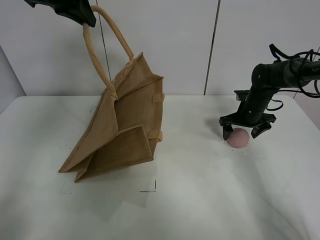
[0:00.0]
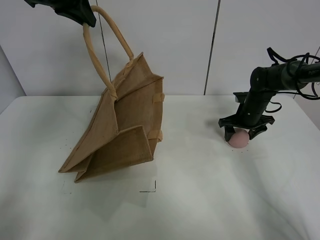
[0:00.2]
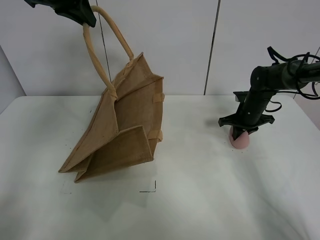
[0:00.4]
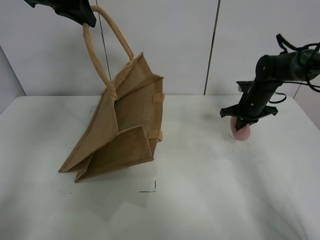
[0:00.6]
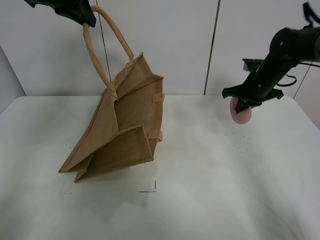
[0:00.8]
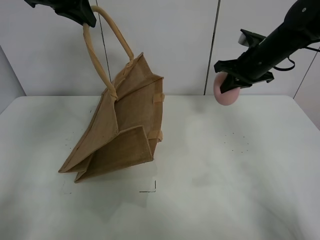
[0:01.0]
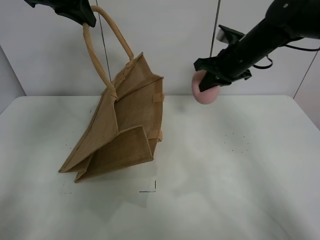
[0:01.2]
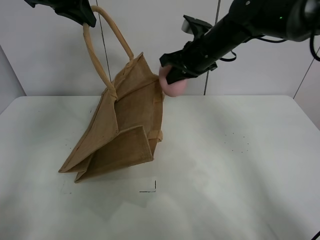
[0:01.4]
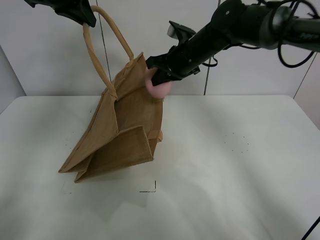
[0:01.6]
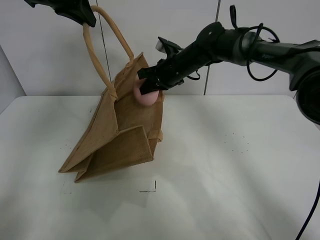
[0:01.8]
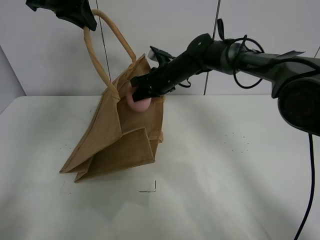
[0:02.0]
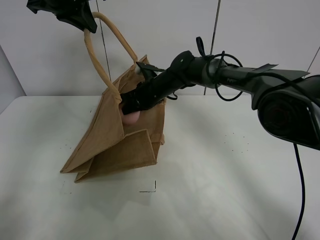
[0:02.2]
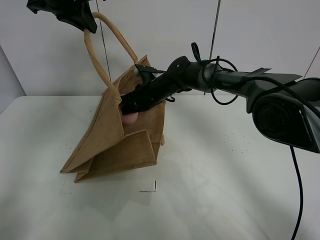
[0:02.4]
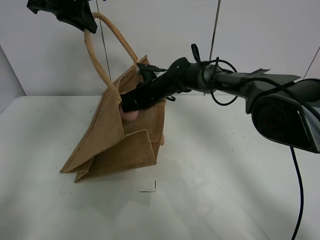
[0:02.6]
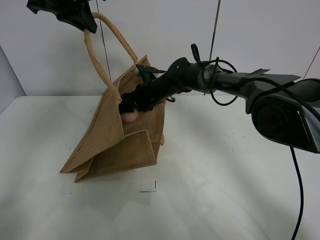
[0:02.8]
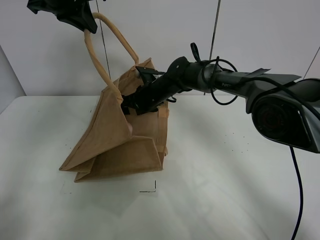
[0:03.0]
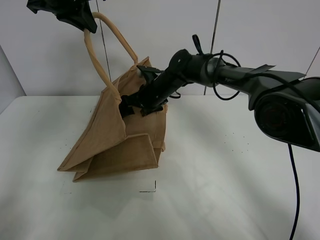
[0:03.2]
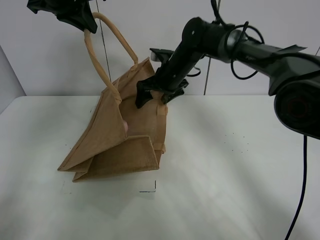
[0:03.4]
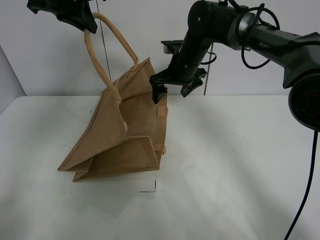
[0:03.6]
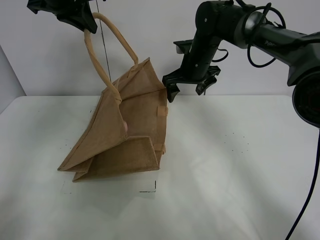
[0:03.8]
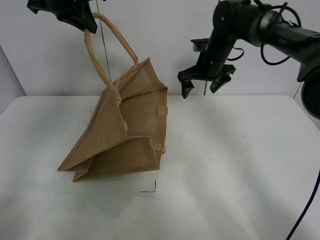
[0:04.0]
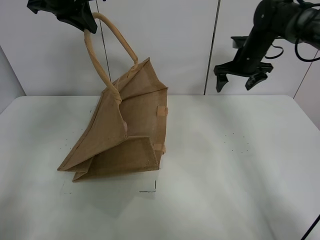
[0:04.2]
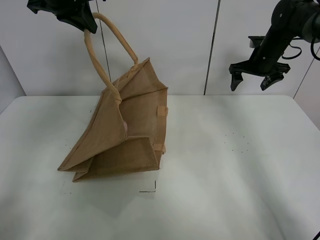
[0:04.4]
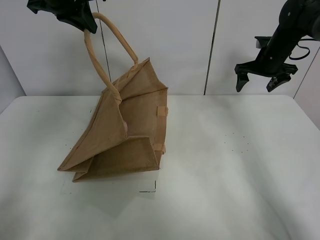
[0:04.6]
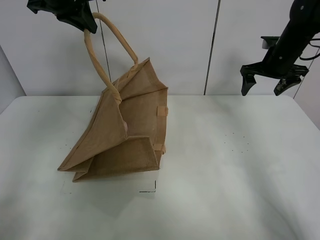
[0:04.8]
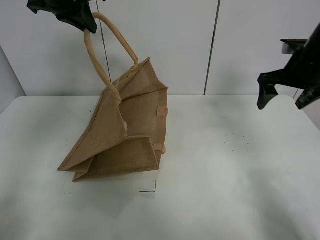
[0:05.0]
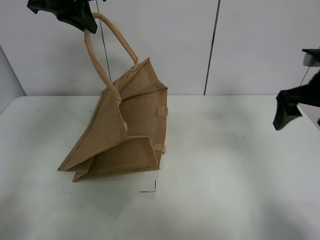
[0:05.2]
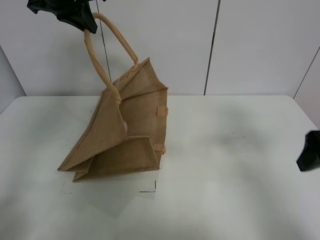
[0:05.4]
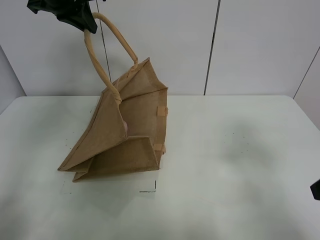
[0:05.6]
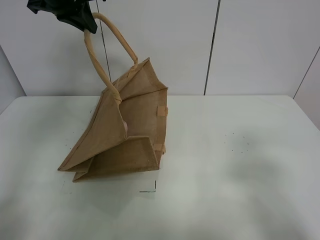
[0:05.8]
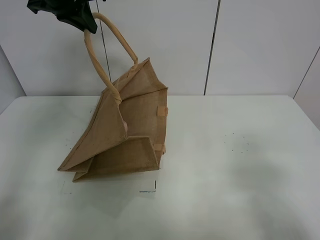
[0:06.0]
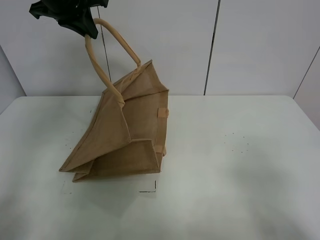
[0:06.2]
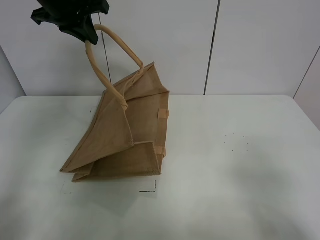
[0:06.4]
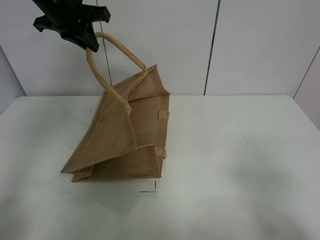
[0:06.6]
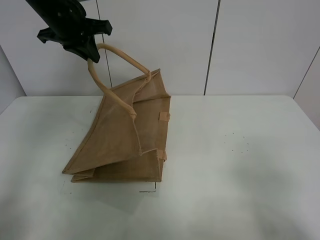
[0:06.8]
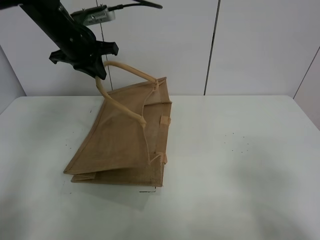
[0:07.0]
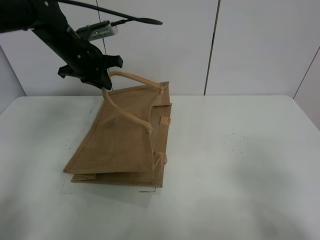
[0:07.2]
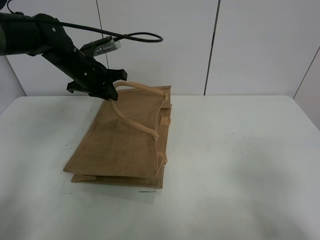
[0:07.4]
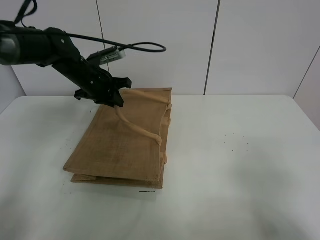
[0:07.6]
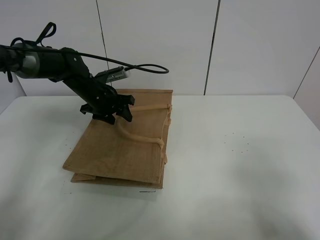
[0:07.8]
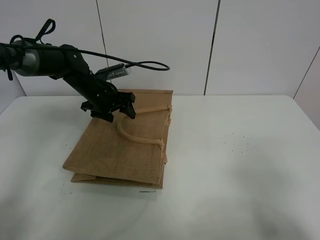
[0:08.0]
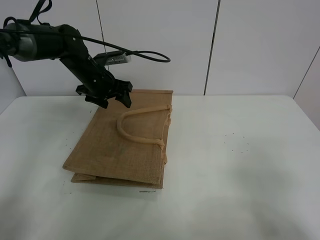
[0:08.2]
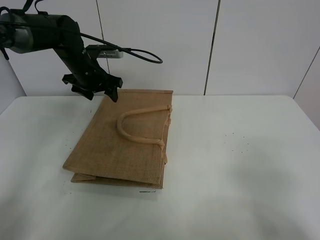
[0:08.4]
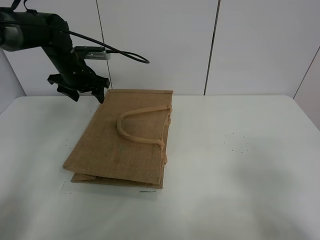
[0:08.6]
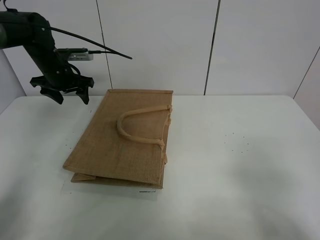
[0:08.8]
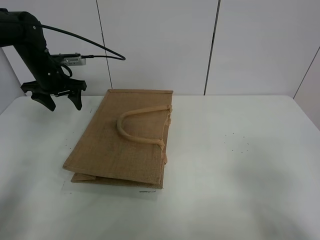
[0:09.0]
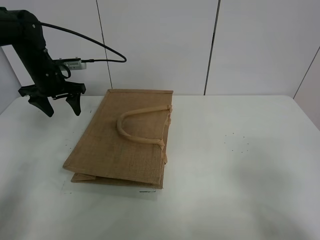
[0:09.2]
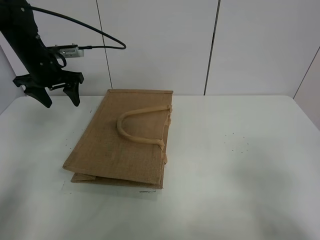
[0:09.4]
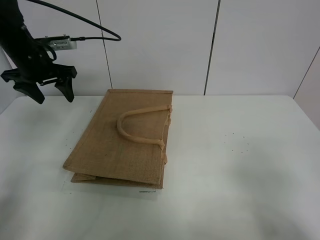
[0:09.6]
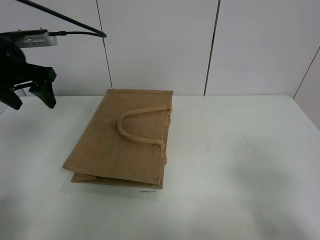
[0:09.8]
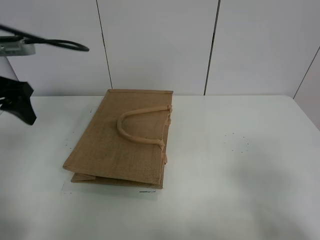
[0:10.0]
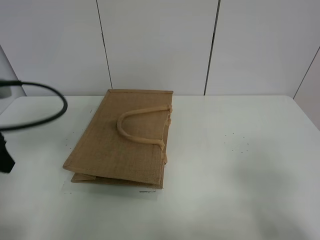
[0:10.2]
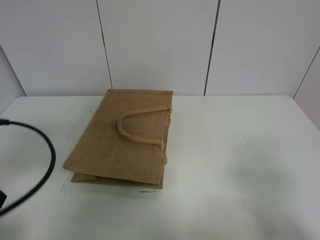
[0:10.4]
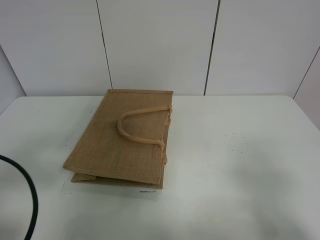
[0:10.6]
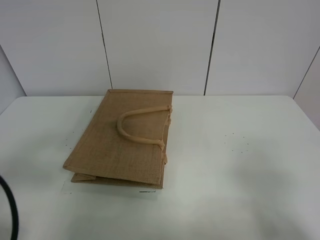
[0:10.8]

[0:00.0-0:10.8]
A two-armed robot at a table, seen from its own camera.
Task of the whole recording: open the brown linen bag and put the peach in the bag.
Step, 0:00.6 to 0:03.6: Place the peach in the handbag with right gripper.
Step, 0:03.8 to 0:08.6: Put down the handbag with left grippe.
0:00.0 to 0:01.6: The right gripper goes about 25 cm to the left and upward, and closes.
0:01.6 to 0:03.0: The right gripper goes roughly 15 cm downward and to the left, and opens its fingers.
0:03.0 to 0:04.6: The right gripper travels to the right by some 30 cm.
0:04.6 to 0:06.2: The right gripper moves backward, about 50 cm.
0:06.2 to 0:07.8: The left gripper shifts about 25 cm downward, and opens.
0:07.8 to 0:09.2: The left gripper goes roughly 10 cm to the left and upward.
0:09.2 to 0:10.8: The left gripper moves backward, some 35 cm.

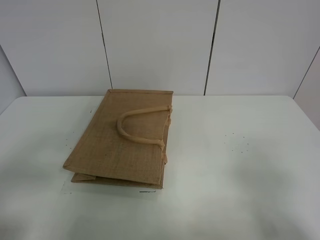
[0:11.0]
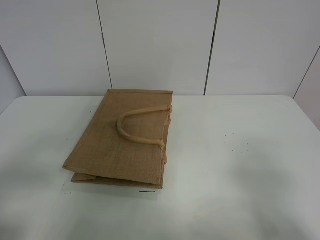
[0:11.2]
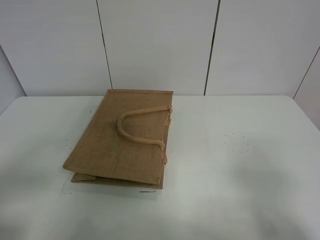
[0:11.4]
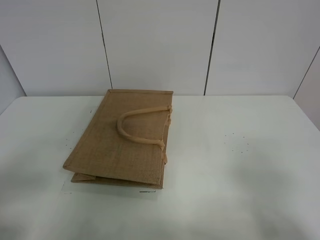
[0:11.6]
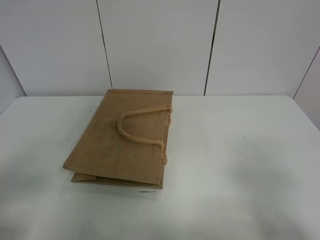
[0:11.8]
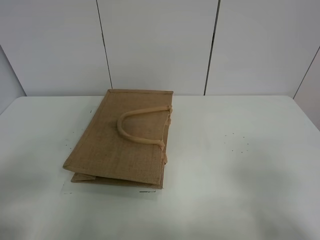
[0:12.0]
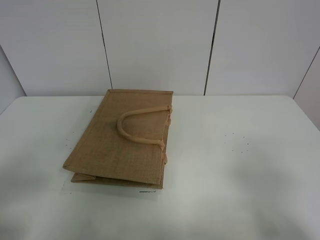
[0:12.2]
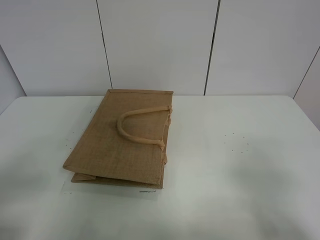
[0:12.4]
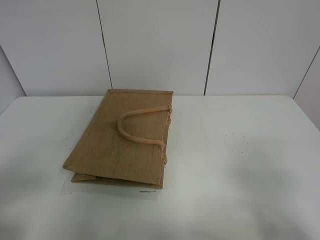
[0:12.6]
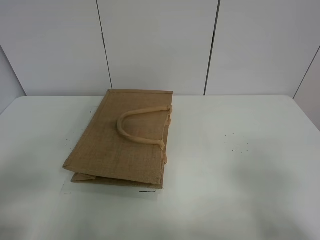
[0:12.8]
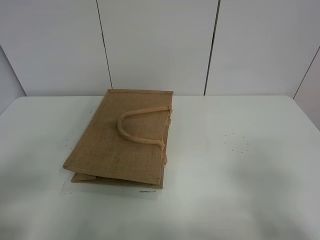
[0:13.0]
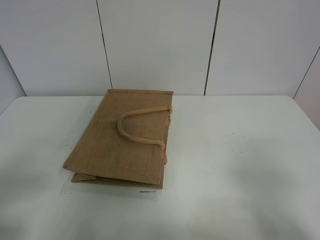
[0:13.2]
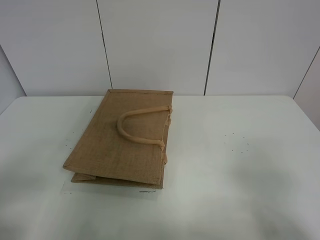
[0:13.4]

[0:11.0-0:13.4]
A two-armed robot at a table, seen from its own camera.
Task of the whole recording: open the brown linen bag and put the peach in the bag.
0:12.2 to 0:13.4: Both grippers stay put.
